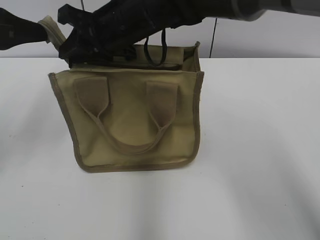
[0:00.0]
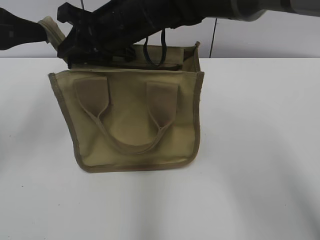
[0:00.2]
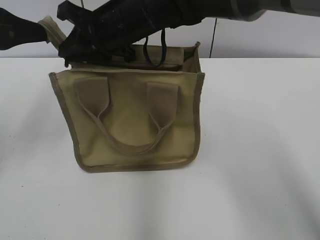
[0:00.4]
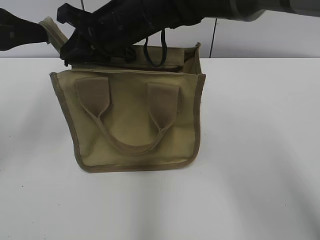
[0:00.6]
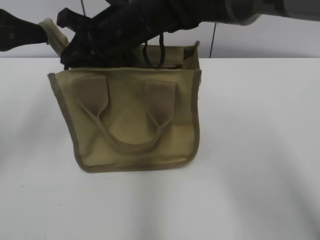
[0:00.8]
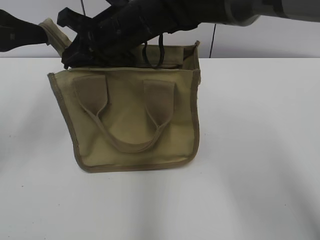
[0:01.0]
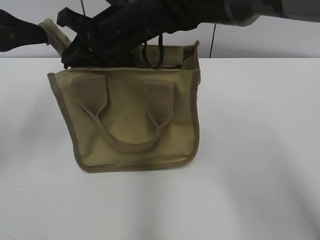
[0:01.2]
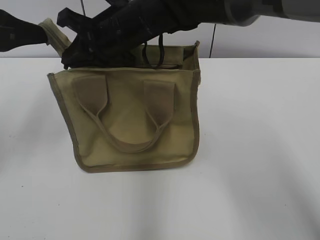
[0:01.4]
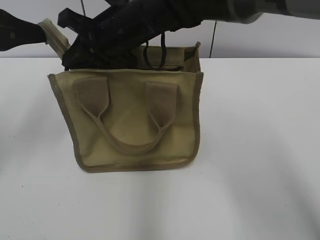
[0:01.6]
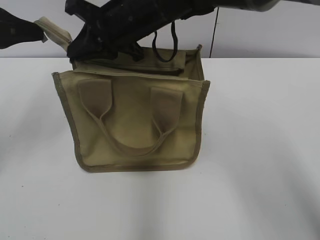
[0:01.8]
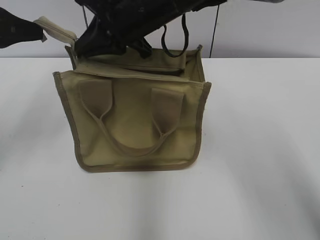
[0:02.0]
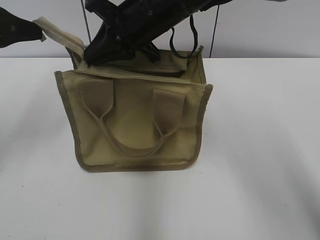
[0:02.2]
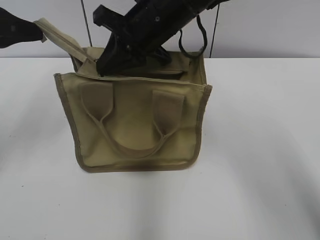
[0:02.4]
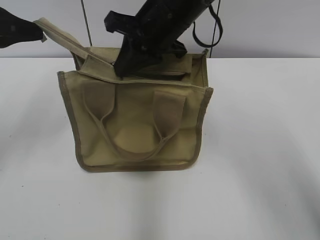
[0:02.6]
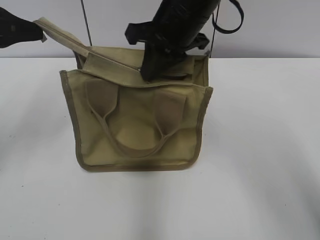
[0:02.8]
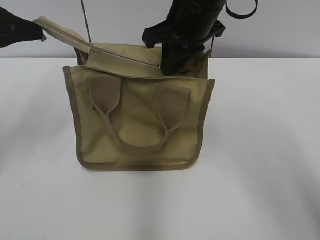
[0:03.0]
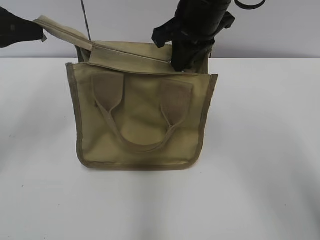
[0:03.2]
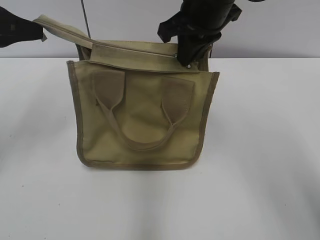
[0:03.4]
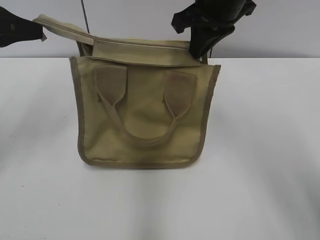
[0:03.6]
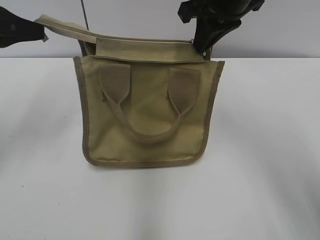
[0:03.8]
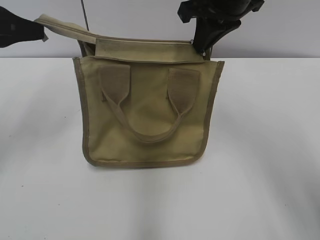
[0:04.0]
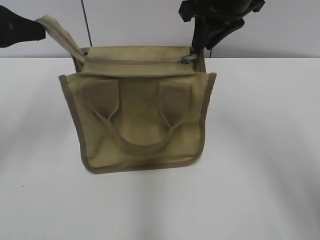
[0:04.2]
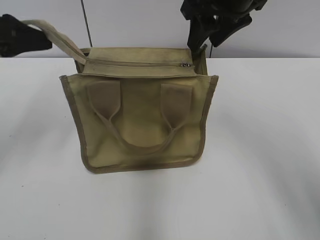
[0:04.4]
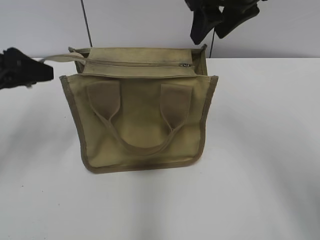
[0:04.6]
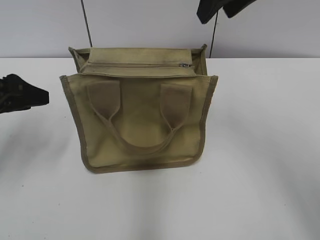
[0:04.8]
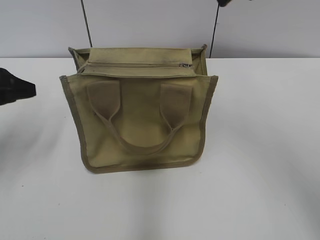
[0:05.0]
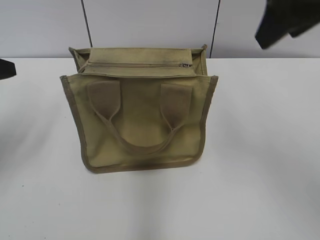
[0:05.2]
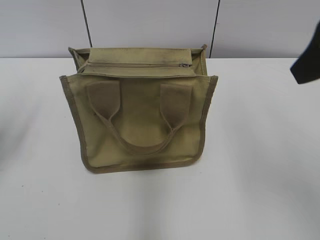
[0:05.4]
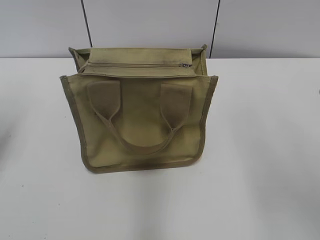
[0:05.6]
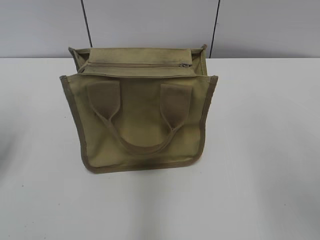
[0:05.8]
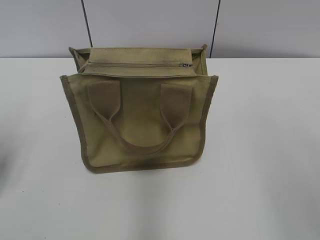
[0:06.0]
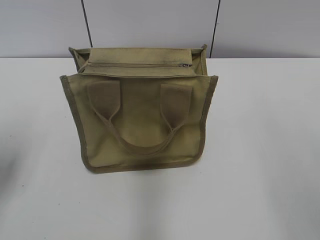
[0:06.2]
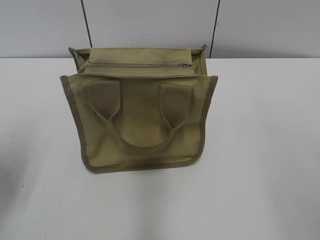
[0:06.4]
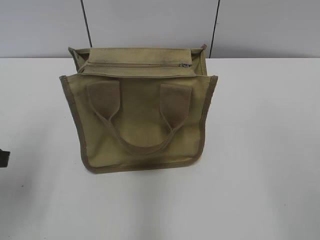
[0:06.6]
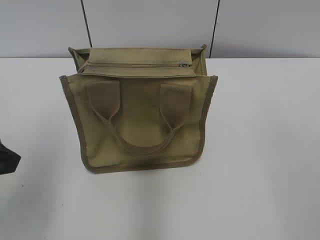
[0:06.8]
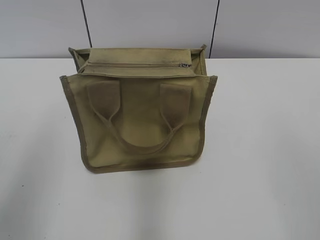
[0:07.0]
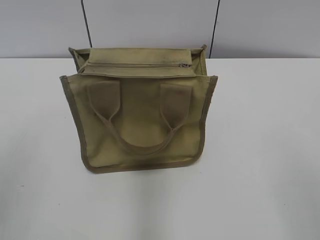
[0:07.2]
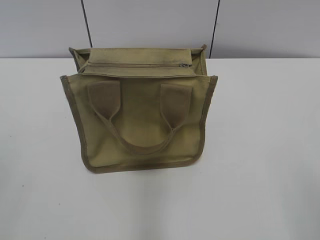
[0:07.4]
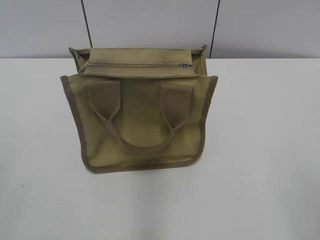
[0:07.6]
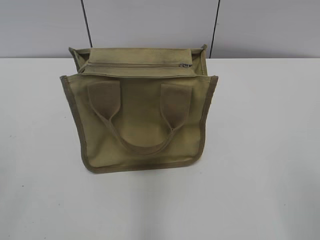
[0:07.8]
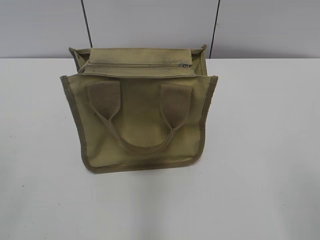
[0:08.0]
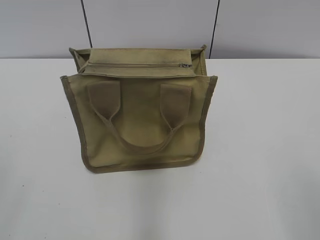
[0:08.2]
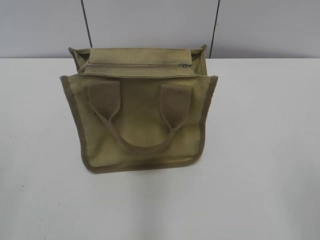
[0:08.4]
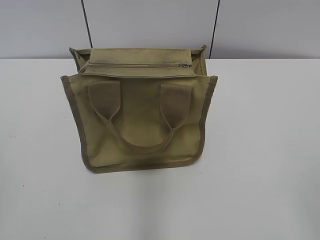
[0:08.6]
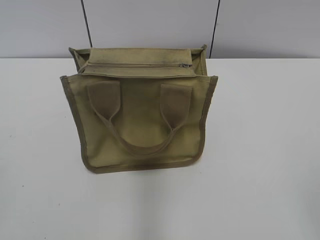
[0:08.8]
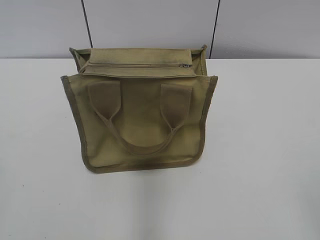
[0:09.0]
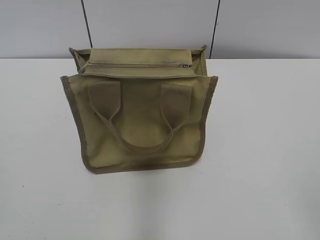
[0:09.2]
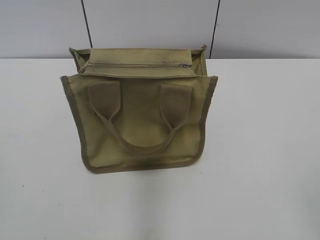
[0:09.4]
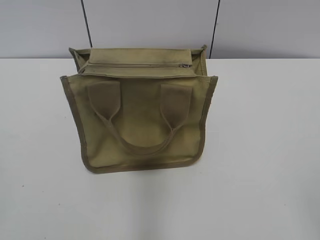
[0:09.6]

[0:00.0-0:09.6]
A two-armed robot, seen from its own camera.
Step, 0:00.0 to 0:04.2: Zip up the bag with your right hand.
Step, 0:04.4 to 0:04.6: Grab the zipper with your left hand.
0:00.0 to 0:01.6: The grippers make only small movements.
0:01.6 to 0:03.2: The right gripper travels to the right by roughly 10 cm.
0:03.2 to 0:04.8: The right gripper moves upward and to the right, about 10 cm, and opens; the left gripper heads downward, covering approximately 10 cm, and opens its fingers.
0:04.8 to 0:06.4: The left gripper is displaced backward by approximately 10 cm; the right gripper travels backward and to the right by about 30 cm.
0:06.4 to 0:08.0: The left gripper heads backward and upward, covering about 20 cm.

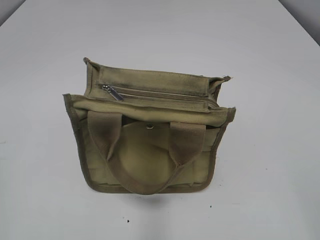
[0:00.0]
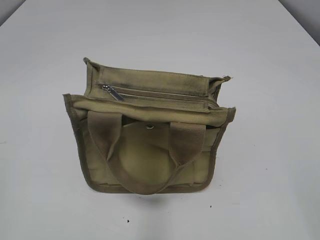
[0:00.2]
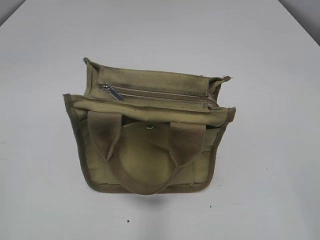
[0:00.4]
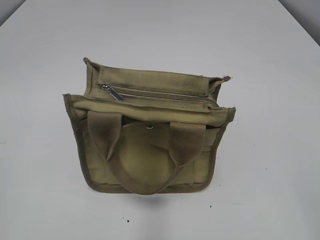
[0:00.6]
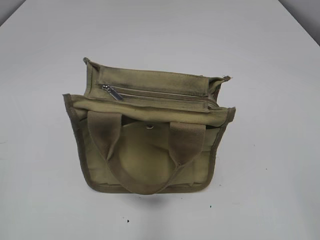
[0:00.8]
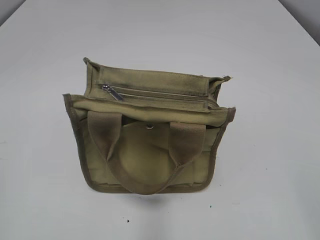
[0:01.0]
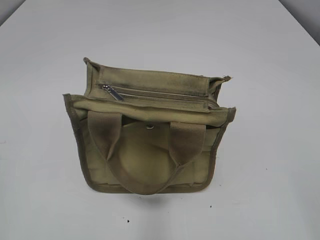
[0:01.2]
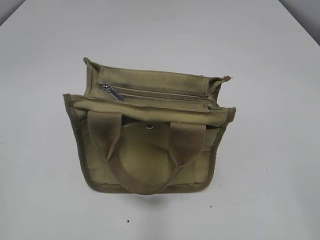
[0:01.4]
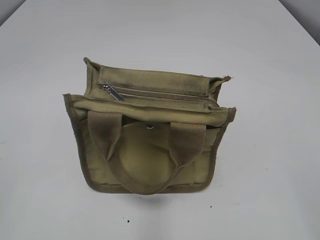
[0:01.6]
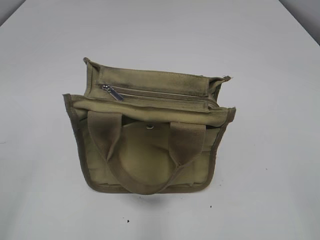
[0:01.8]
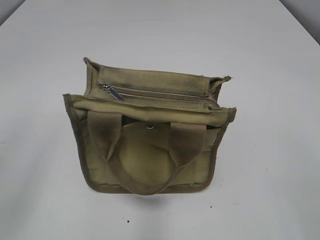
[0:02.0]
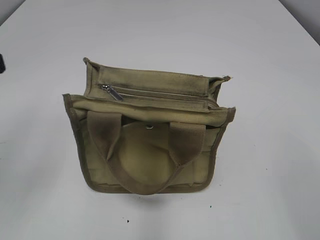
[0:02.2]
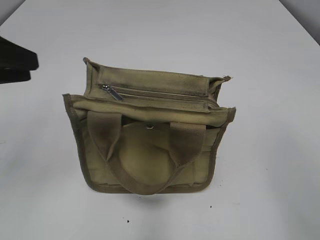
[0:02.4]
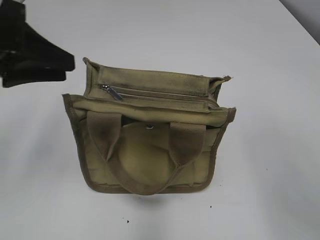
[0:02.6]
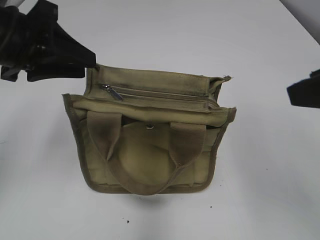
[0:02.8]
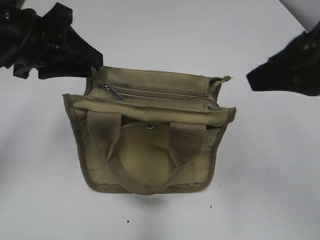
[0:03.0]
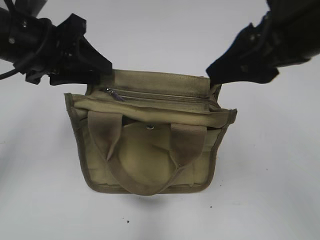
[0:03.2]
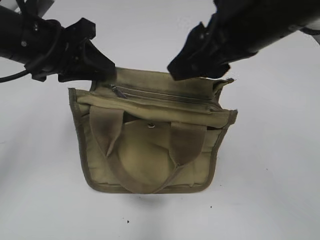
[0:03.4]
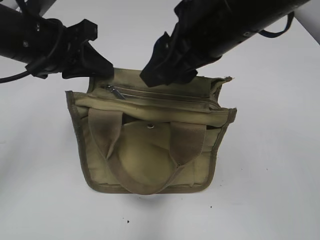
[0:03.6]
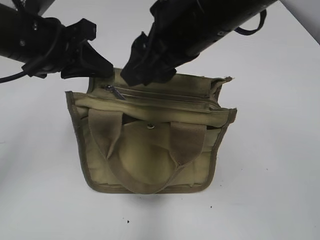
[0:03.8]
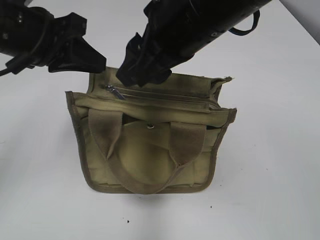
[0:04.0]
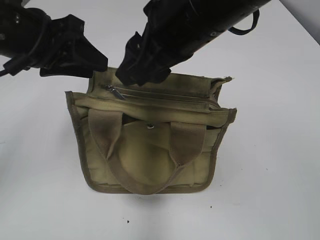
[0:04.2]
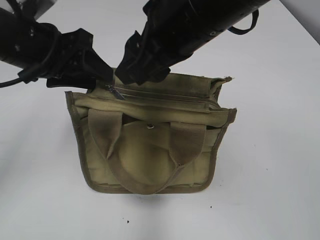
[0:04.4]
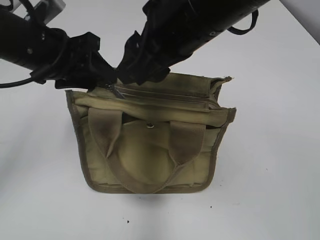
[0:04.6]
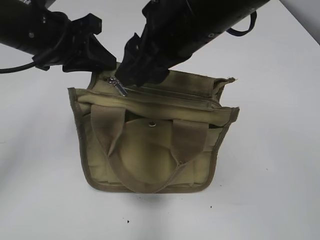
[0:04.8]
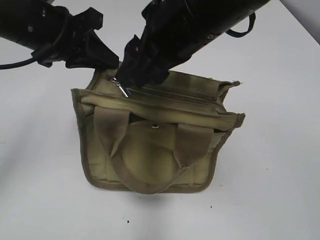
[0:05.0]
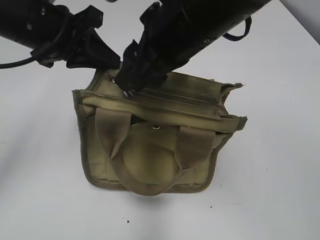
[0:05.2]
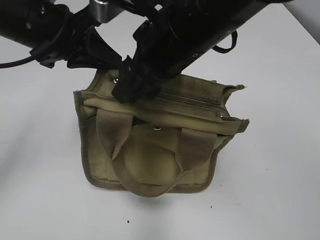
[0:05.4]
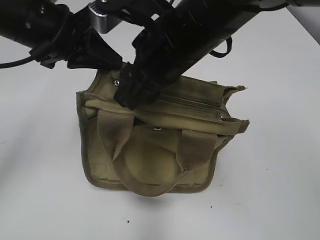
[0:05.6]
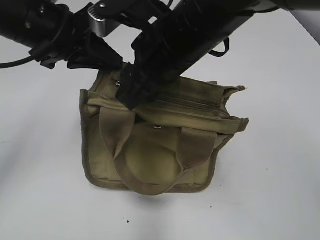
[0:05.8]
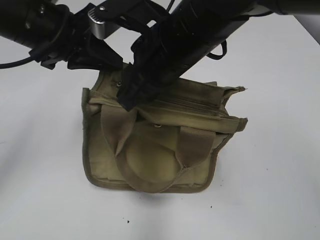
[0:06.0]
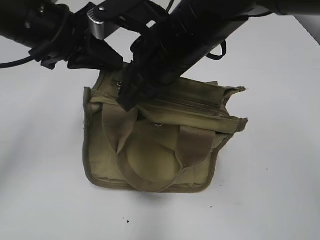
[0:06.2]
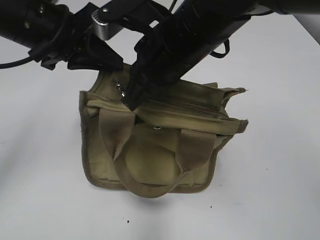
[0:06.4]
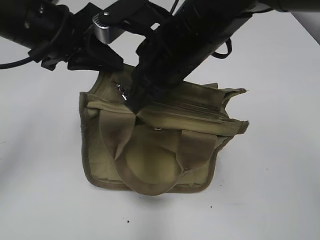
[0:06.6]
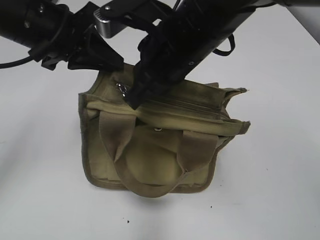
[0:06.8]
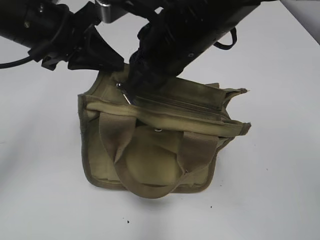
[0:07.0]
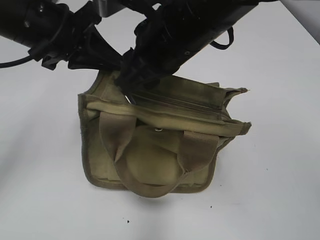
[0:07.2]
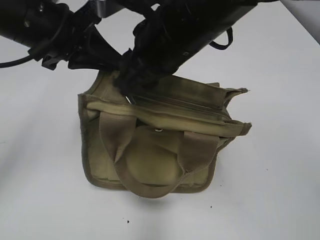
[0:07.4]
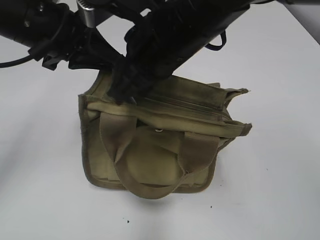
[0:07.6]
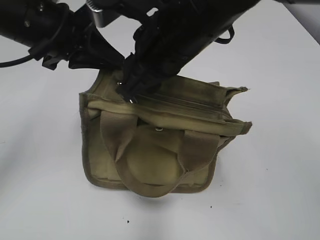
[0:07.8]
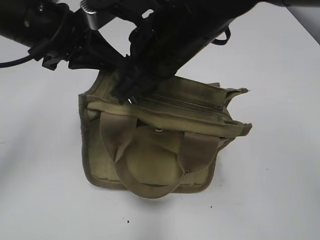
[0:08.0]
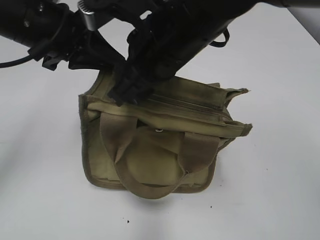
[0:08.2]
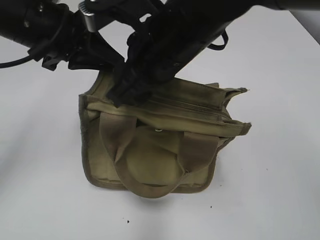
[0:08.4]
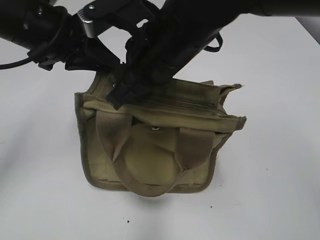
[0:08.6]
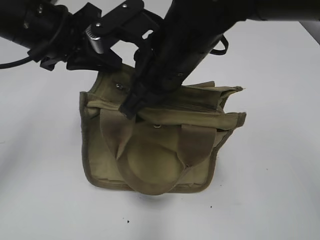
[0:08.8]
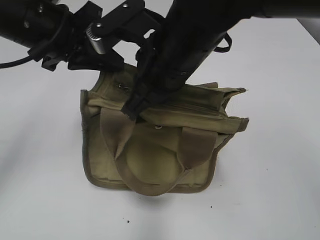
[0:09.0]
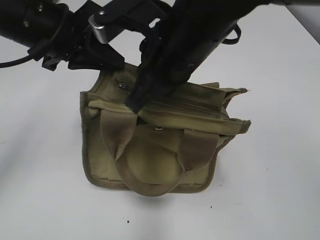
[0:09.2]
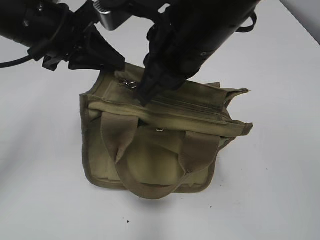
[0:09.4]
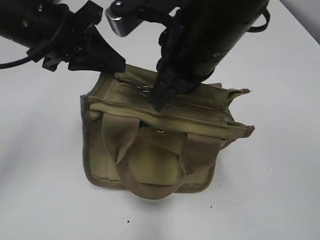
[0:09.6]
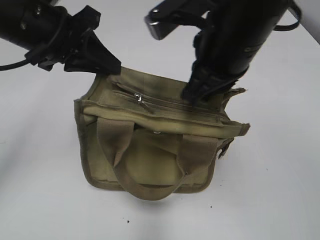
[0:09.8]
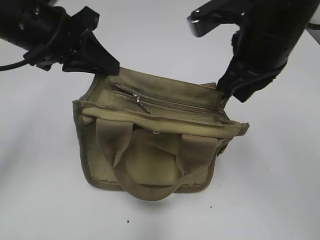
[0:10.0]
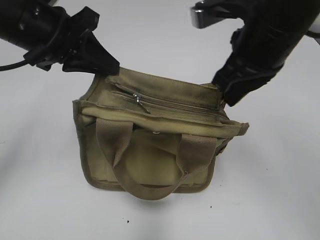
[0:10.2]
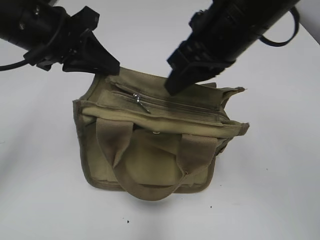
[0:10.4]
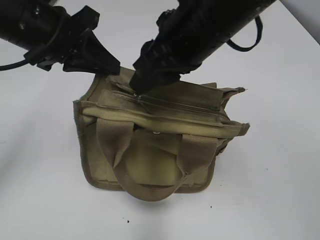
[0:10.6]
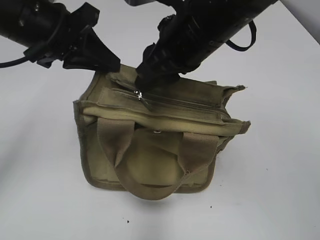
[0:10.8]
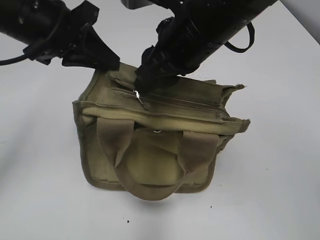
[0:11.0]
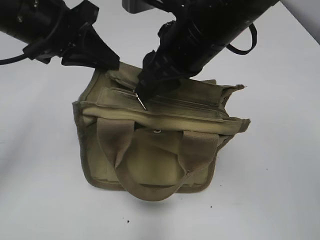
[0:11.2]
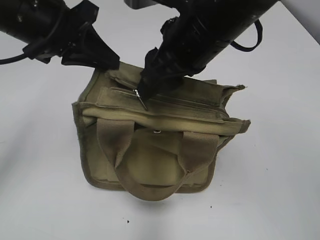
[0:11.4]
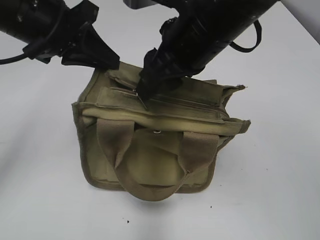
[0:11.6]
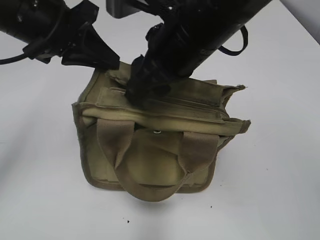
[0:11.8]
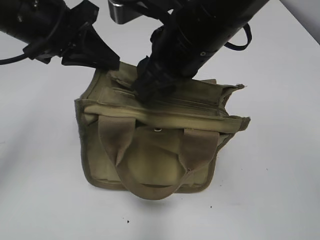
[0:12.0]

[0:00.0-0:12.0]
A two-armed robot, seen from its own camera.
0:01.6 to 0:03.0: The left gripper is displaced forward and to the right by about 30 cm, while the right gripper moves forward and to the left, roughly 20 cm, and opens its fingers.
0:03.0 to 0:04.4: The left gripper closes and opens again. The right gripper moves to the left and forward, approximately 15 cm.
0:04.4 to 0:06.0: The left gripper closes. The right gripper goes approximately 5 cm downward, and closes up.
0:06.0 to 0:07.6: The right gripper closes, then reopens.
0:07.6 to 0:09.0: The right gripper closes up.
0:09.0 to 0:10.4: The right gripper moves to the right, some 5 cm.
0:10.4 to 0:12.0: The right gripper opens up.
